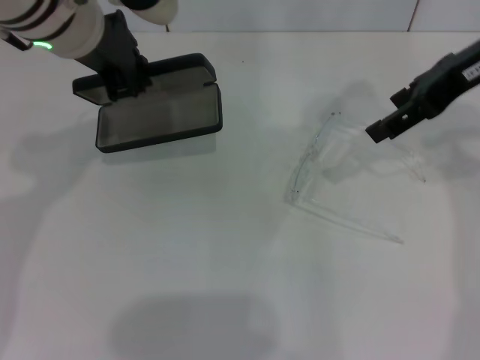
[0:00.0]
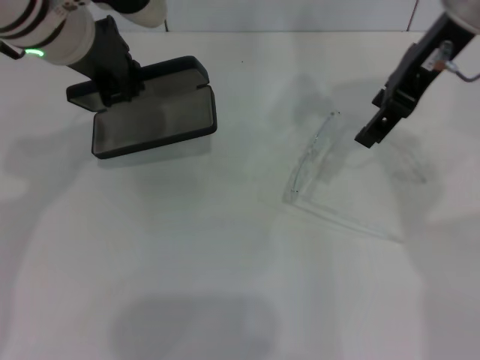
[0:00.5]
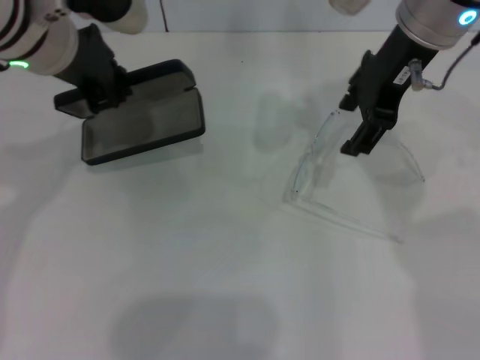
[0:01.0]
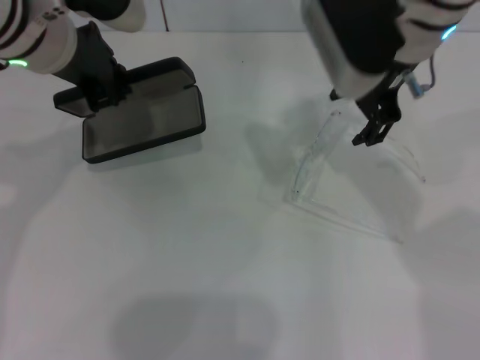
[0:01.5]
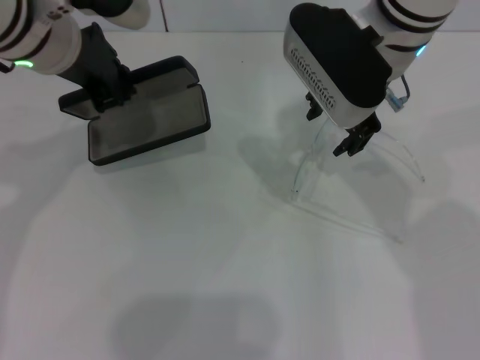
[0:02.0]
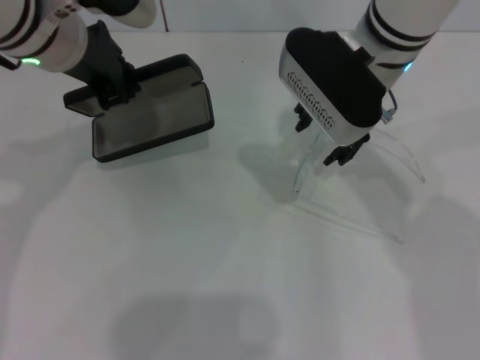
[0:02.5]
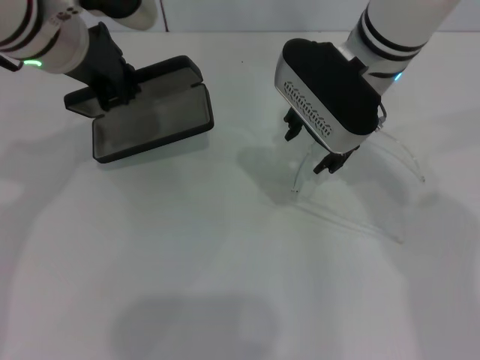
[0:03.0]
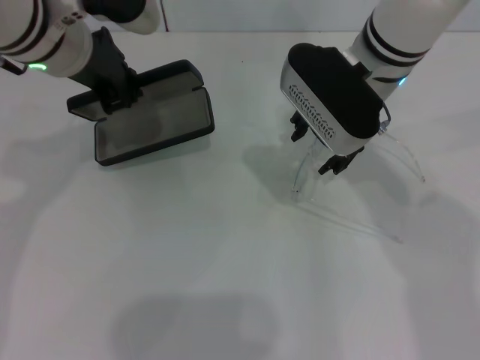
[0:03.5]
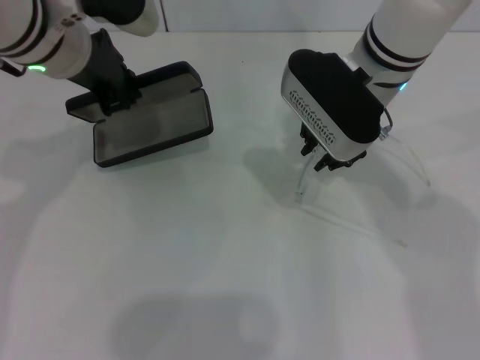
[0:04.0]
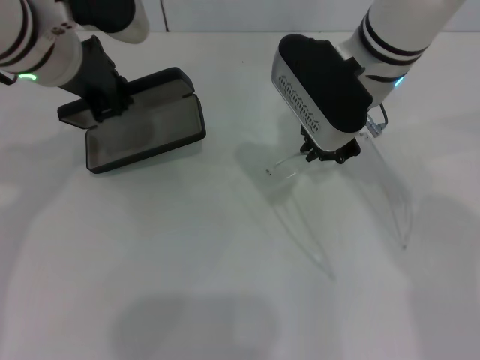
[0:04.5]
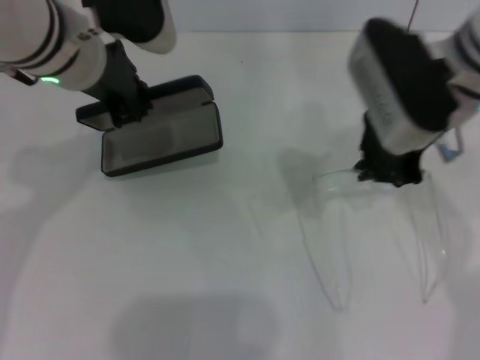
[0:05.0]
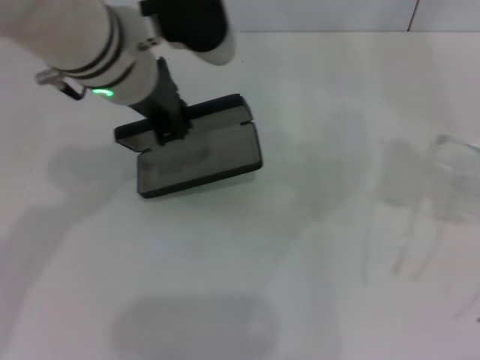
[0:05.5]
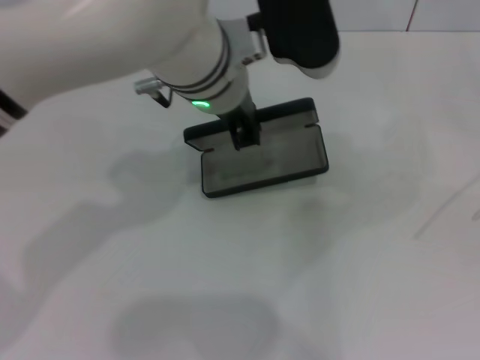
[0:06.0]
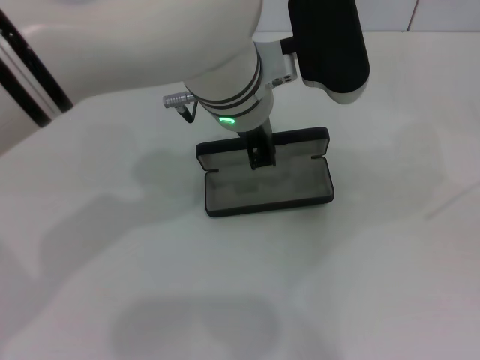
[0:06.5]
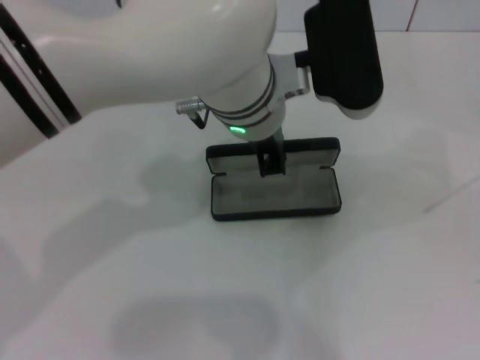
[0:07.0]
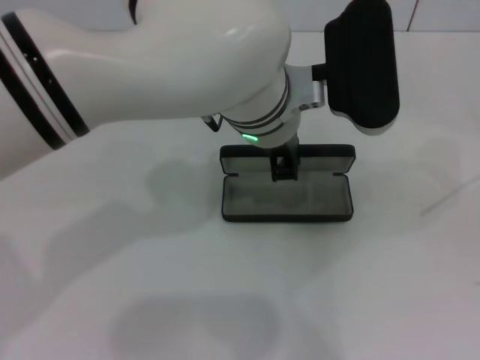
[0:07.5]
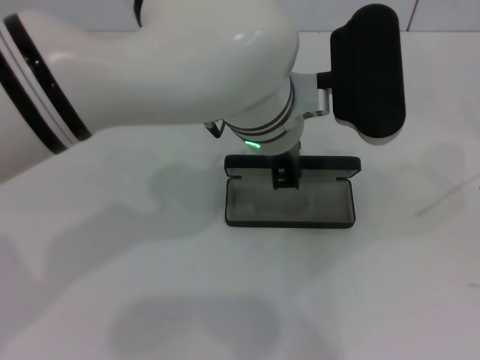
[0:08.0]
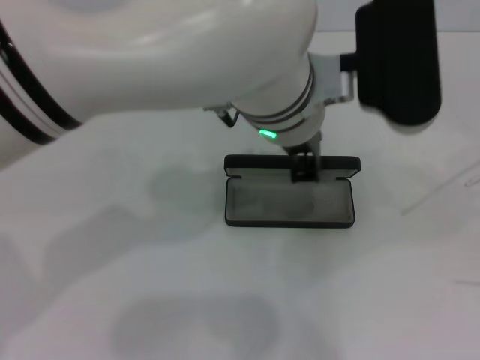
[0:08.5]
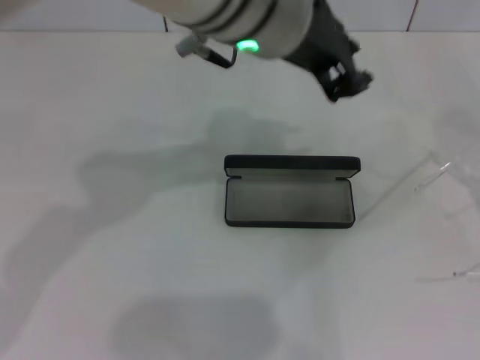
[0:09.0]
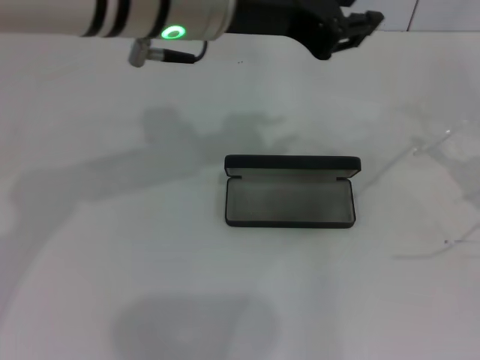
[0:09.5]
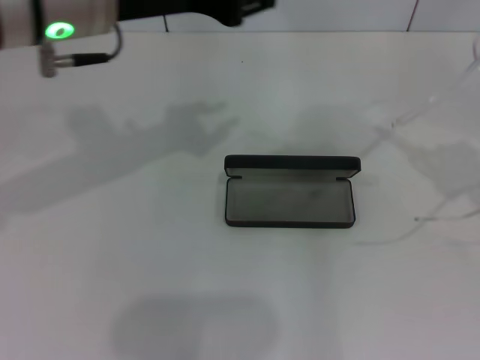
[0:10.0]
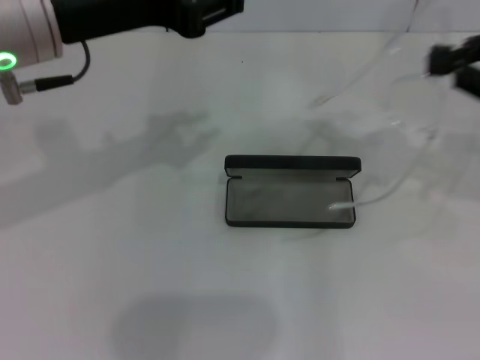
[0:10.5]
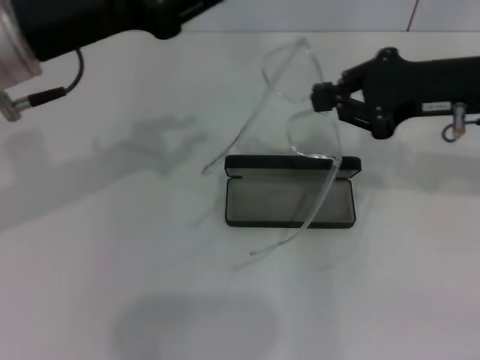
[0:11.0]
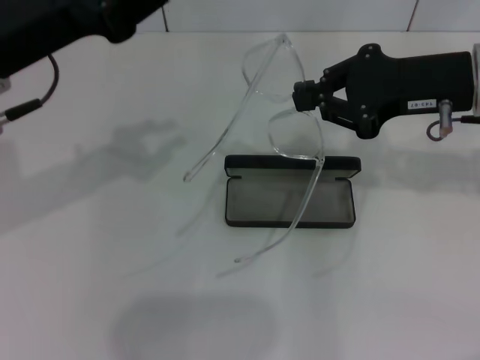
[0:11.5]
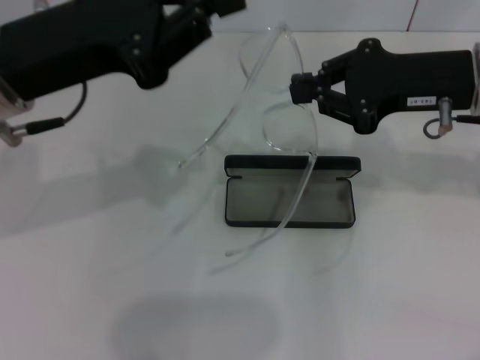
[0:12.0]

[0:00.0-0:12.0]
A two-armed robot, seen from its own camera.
Step, 0.0 to 4.0 s: Grab the eyeglass frame with your right hand.
Step, 4.5 to 7.5 s: Place the glasses case in the center of the table with your left hand.
0.0 to 2.0 s: The right gripper shifts some 15 cm to the left.
2.0 to 4.0 s: The grippers stay close to where they were, moving slightly.
4.0 to 6.0 s: The left gripper shifts about 15 cm to the right. The right gripper shifts approximately 35 cm to the right and backward, and closes up.
6.0 to 8.0 s: The left gripper shifts by approximately 5 cm.
8.0 to 10.0 s: The left gripper is displaced to the left and upward by some 15 cm, while the right gripper heads to the left, covering some 5 cm.
10.0 to 12.0 s: The right gripper travels to the left and forward by some 15 cm. Meanwhile the left gripper is displaced to the left by about 5 cm.

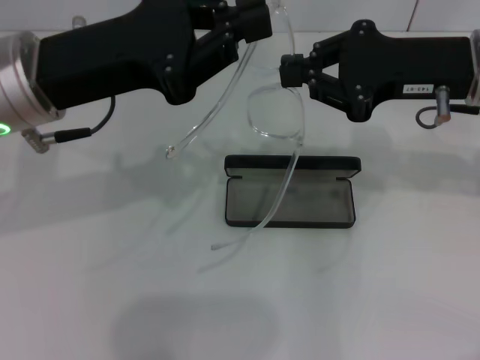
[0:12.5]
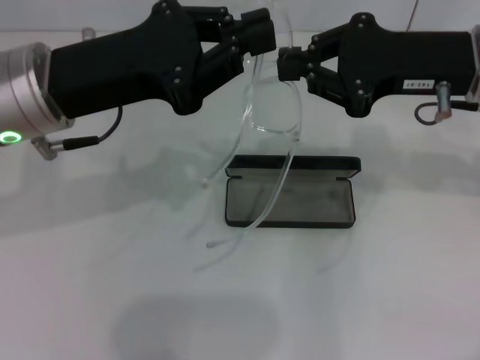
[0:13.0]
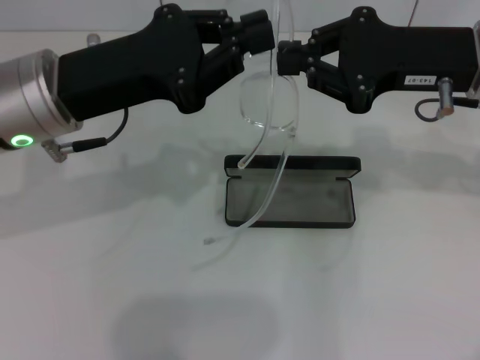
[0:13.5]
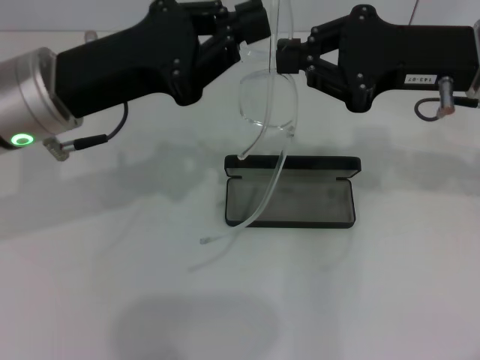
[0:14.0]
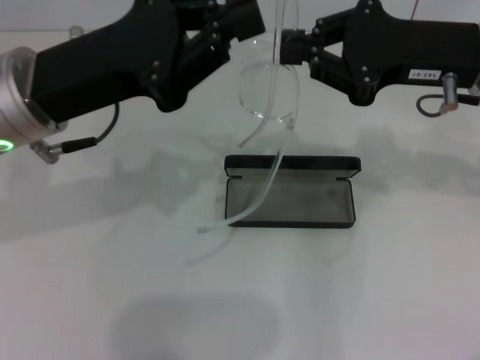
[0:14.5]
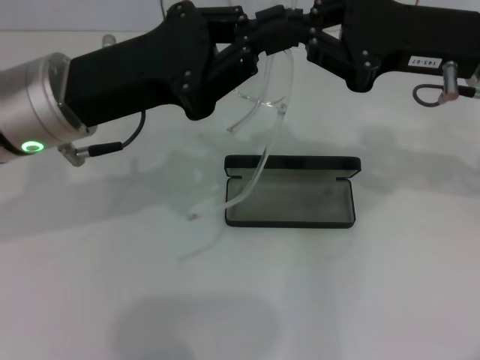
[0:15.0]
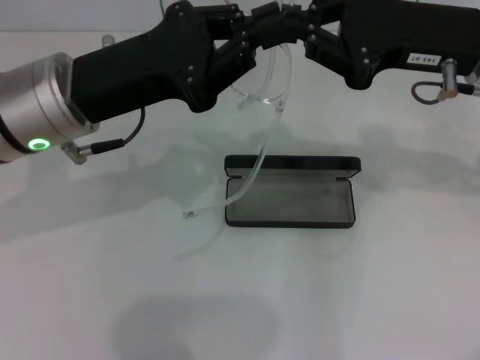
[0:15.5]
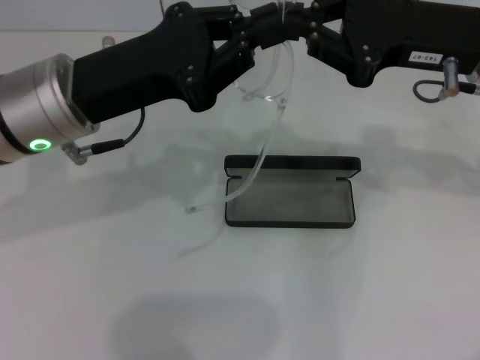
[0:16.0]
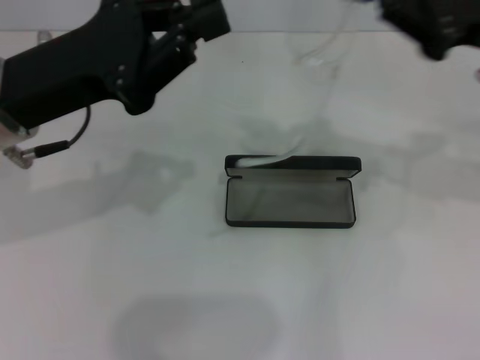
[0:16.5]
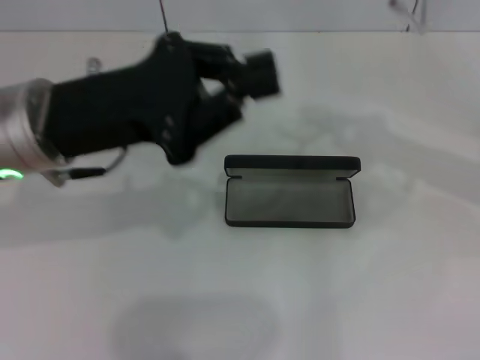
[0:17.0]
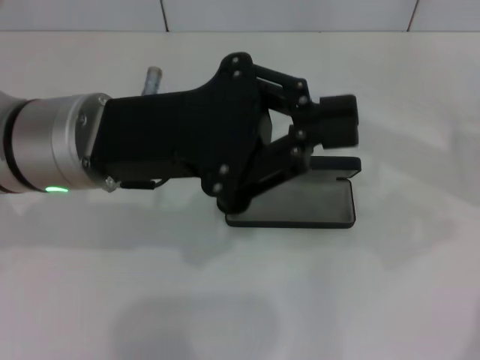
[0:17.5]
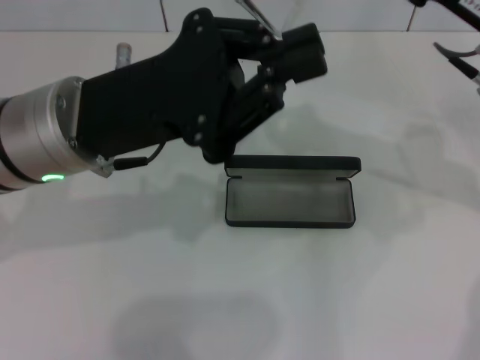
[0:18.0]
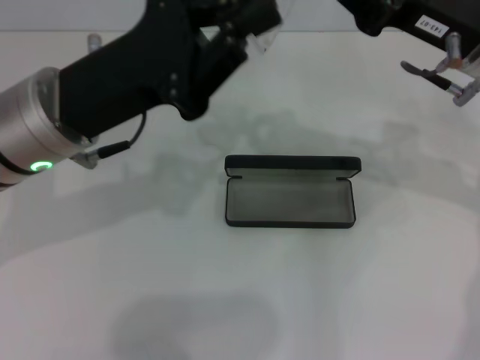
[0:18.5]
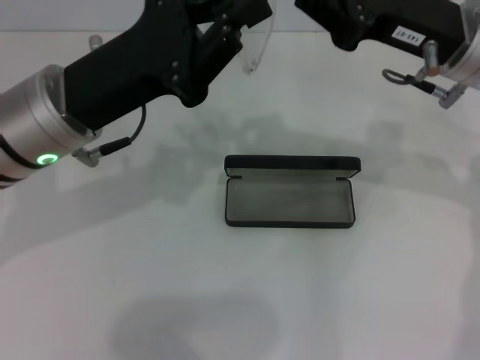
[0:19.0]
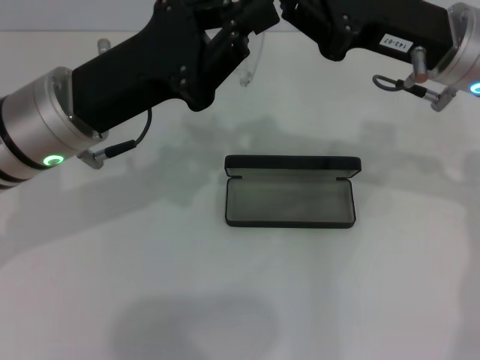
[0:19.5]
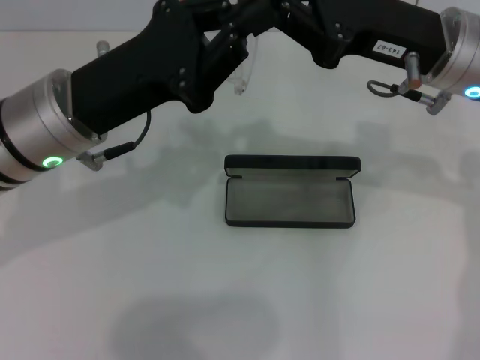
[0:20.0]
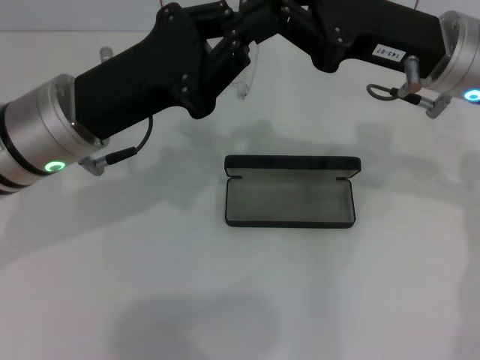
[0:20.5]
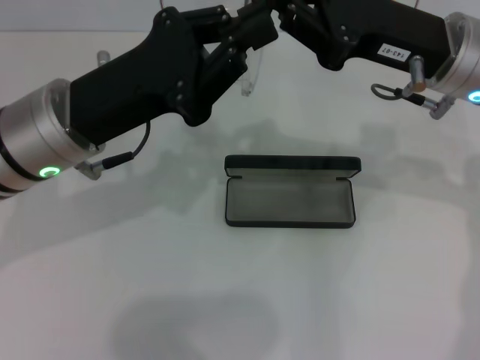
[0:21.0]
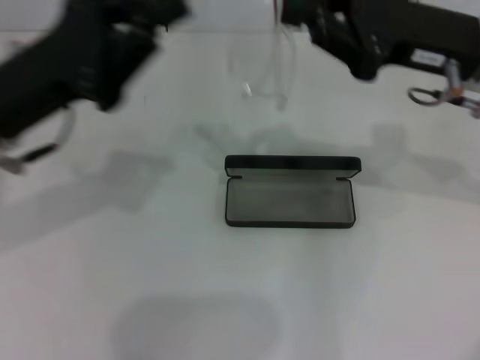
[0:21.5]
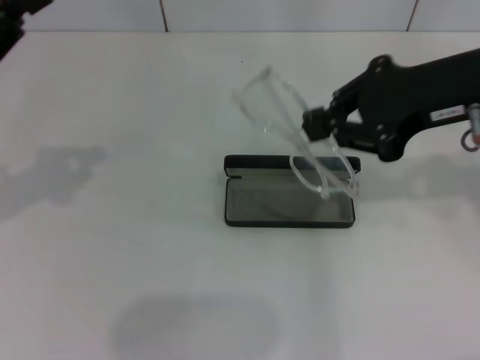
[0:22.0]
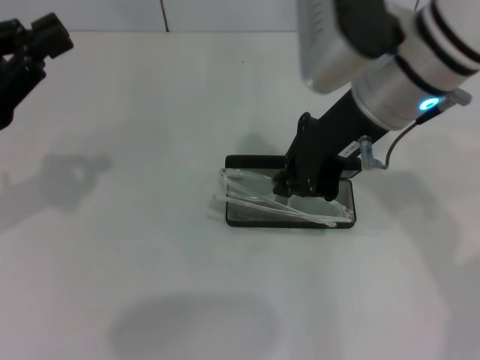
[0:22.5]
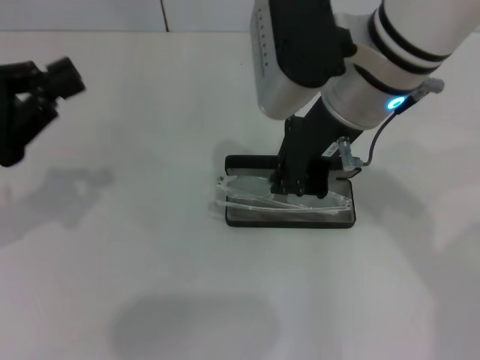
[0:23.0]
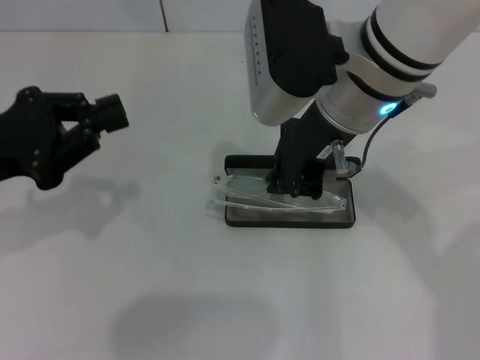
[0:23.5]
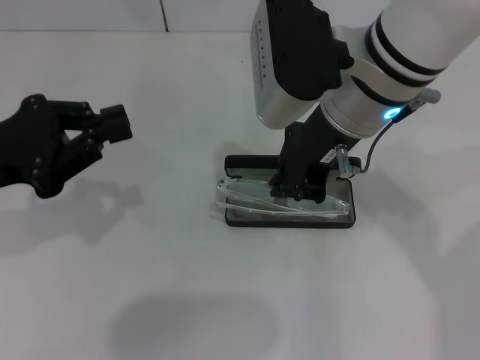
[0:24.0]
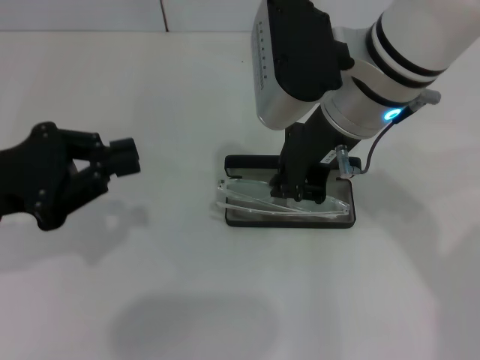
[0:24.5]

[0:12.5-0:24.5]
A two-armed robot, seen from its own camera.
Step, 12.5 to 21.0 s: Fold the frame with your left hand.
12.5 to 16.5 s: There are only small adjustments of the grippers.
16.5 to 18.5 s: The right gripper goes some 5 cm to the left.
18.5 to 20.5 s: The grippers stay close to where they were, moving slightly.
20.5 to 22.5 s: The left gripper travels to the left by approximately 15 cm, while the right gripper is displaced to the left by some 5 cm.

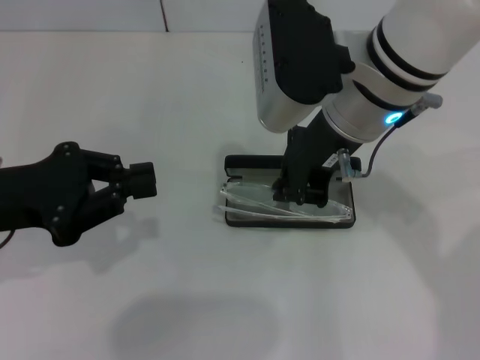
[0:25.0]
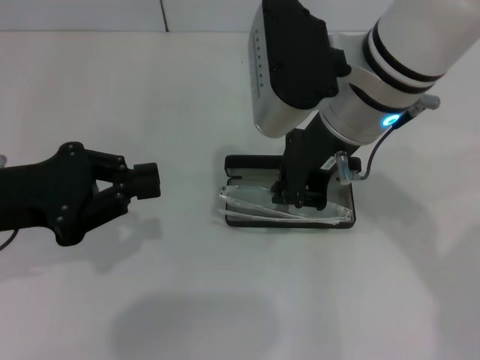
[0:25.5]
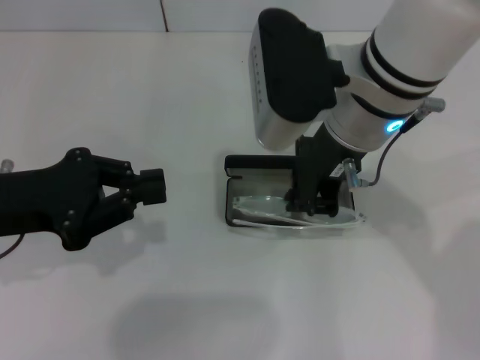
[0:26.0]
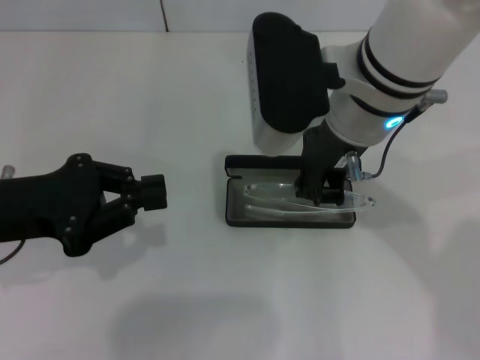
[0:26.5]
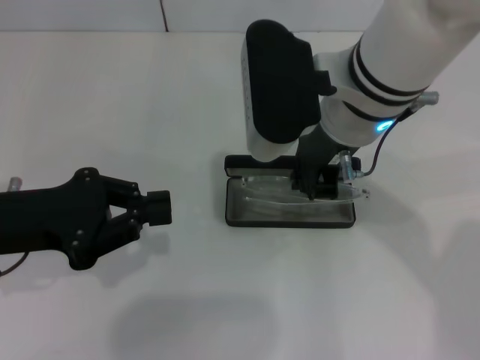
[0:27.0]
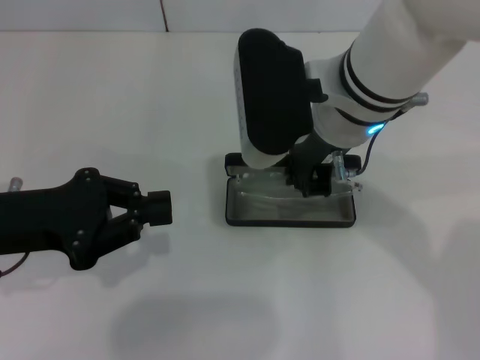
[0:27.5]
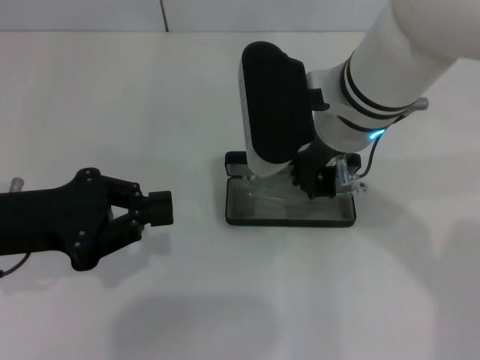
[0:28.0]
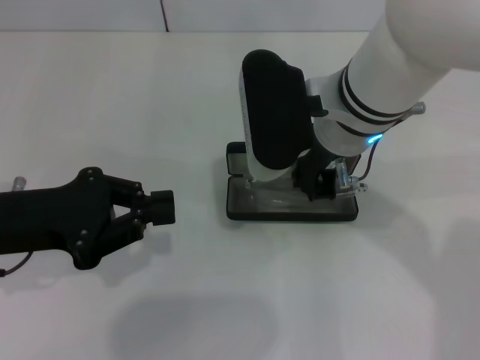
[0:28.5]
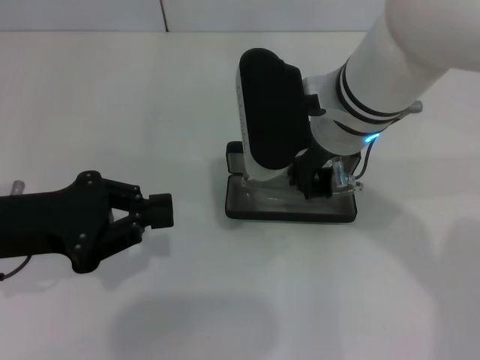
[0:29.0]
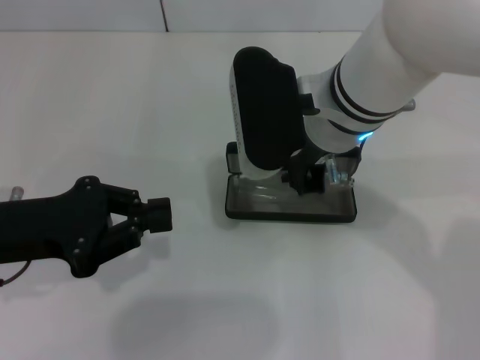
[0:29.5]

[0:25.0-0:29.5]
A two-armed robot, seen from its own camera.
25.0 to 29.5 s: The grippers stay close to where they were, moving slightly.
